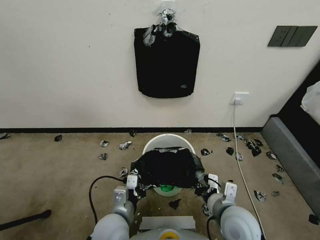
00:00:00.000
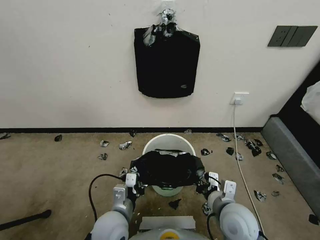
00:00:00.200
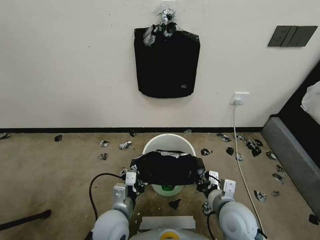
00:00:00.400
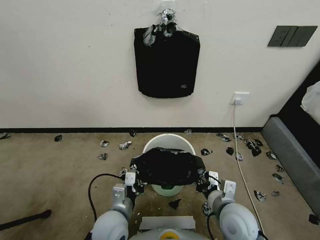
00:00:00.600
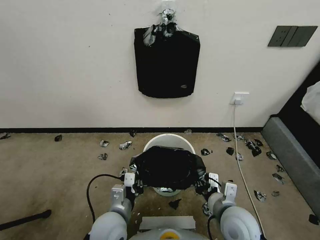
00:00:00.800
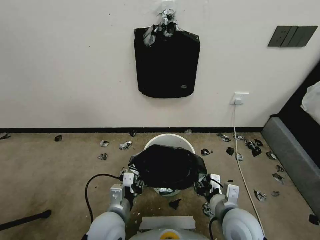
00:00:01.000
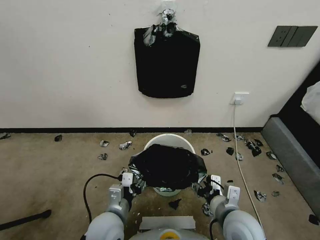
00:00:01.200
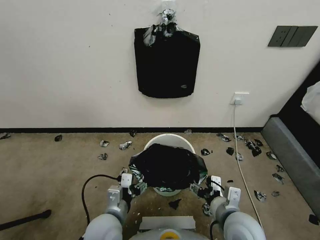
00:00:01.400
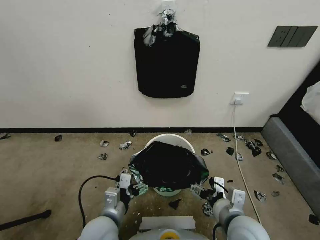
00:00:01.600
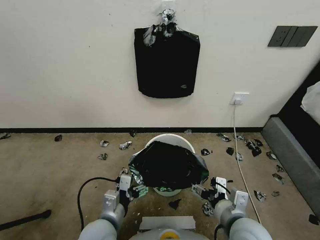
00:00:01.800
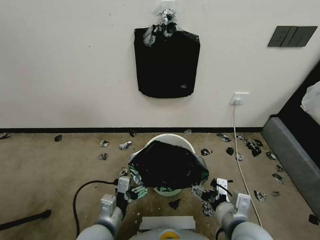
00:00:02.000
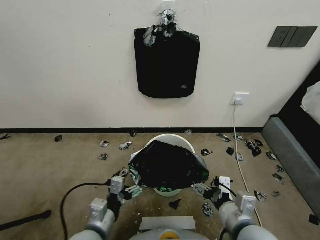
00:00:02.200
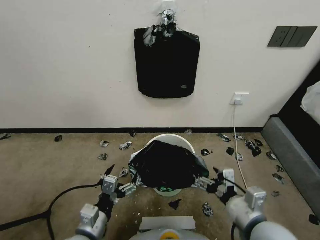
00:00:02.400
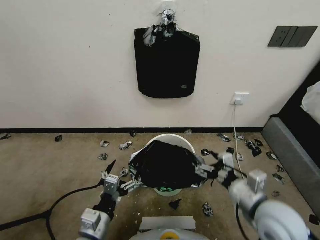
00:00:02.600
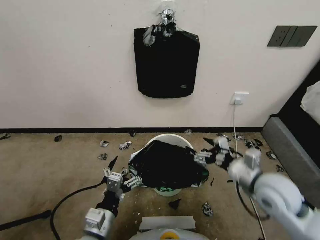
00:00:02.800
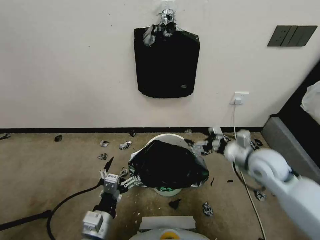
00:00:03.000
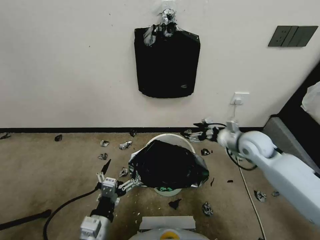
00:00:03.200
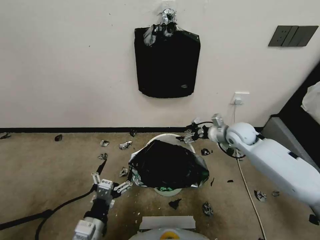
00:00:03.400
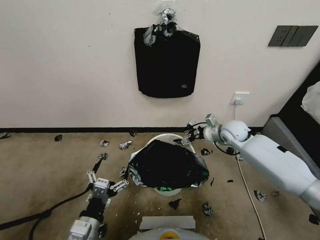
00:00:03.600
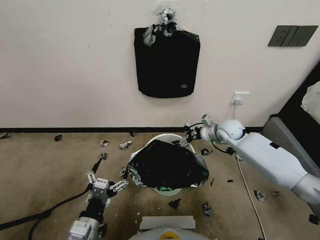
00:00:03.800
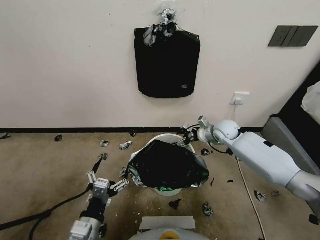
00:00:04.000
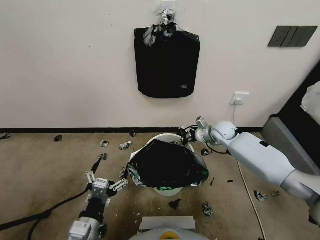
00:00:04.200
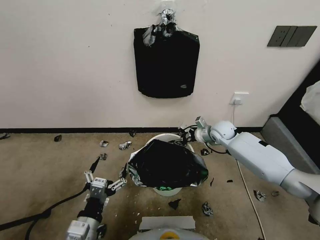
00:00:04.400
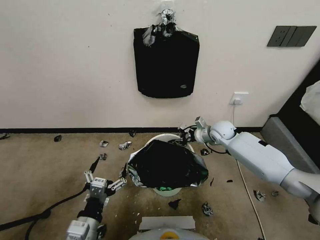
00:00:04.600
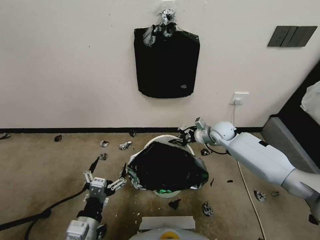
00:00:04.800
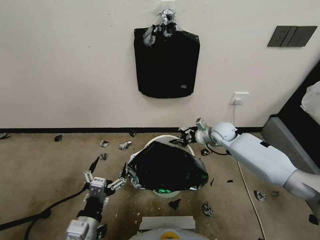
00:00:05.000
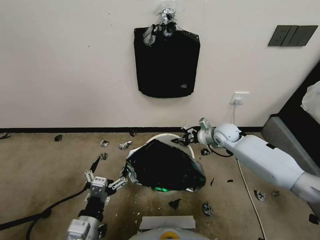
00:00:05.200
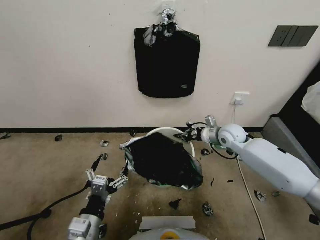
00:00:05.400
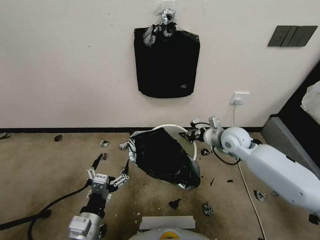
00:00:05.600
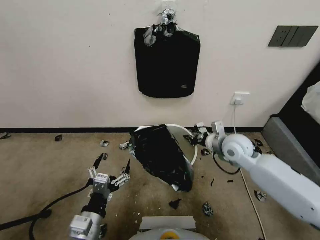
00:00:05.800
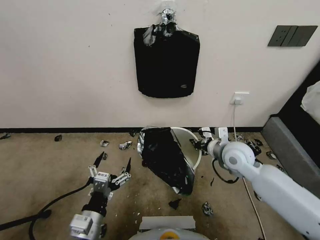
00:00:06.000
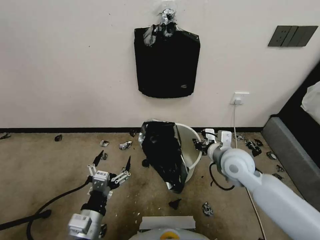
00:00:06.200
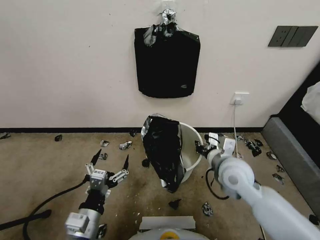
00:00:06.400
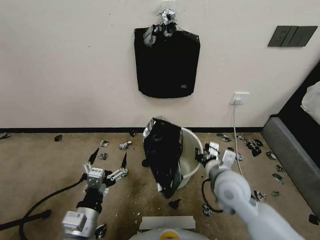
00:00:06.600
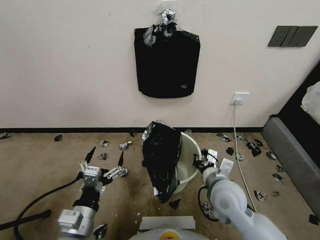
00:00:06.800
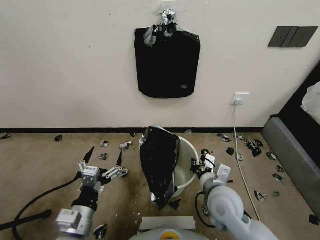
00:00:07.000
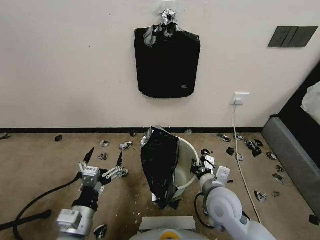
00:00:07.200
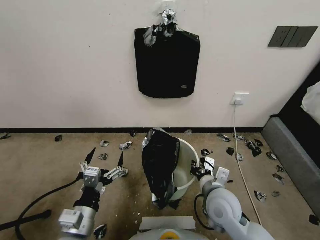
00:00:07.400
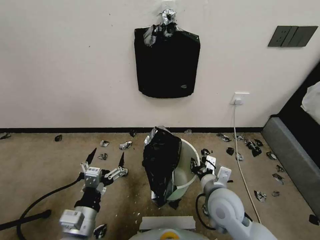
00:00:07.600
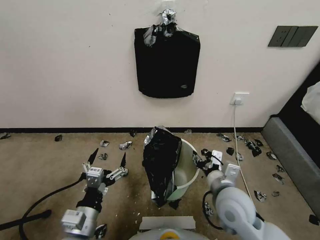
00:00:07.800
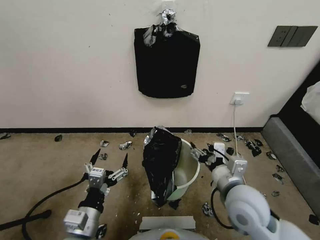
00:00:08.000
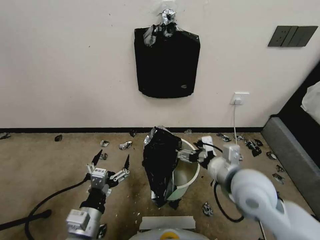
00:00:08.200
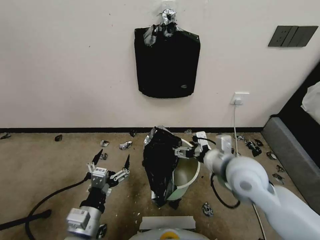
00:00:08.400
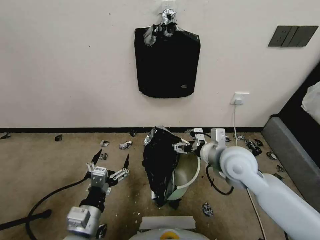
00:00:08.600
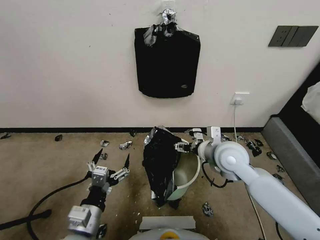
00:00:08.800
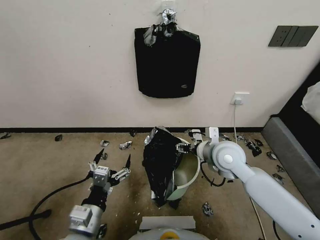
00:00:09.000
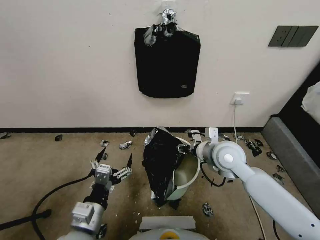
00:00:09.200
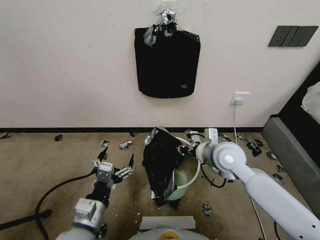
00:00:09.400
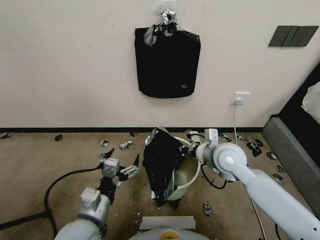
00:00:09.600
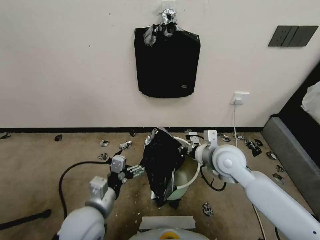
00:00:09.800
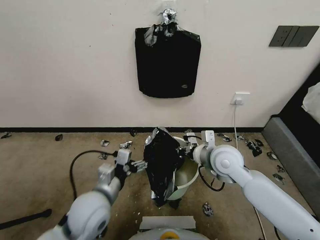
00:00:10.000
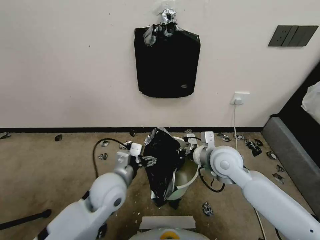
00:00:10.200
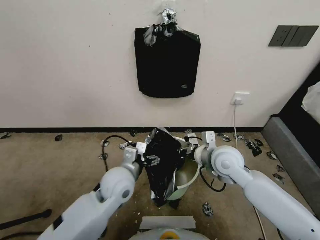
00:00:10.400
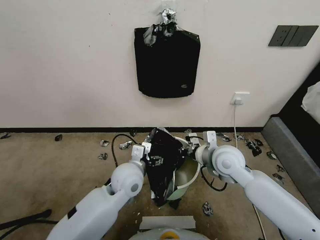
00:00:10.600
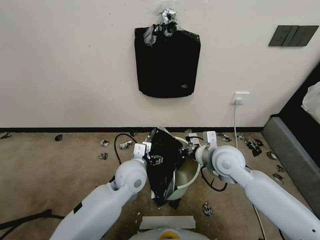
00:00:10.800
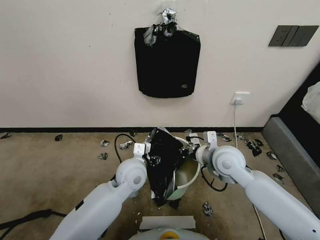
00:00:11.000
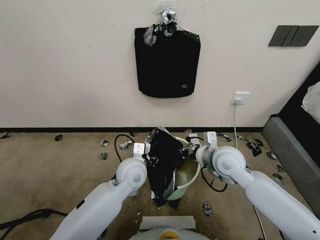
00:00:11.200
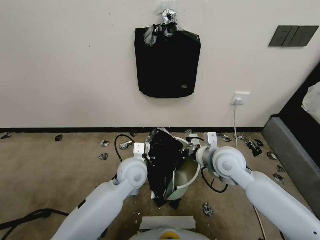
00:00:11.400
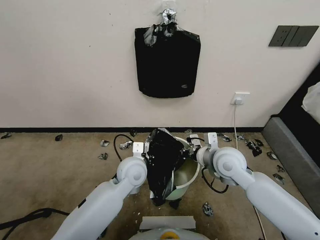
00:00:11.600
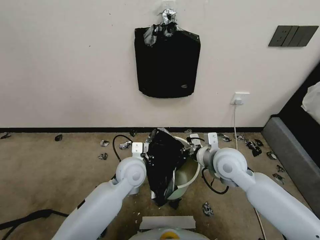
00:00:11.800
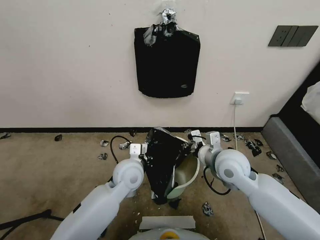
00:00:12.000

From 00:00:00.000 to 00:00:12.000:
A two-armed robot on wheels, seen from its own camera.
Task of the whole recording: Place a trash bag onto the trash bin.
From 00:00:00.000 to 00:00:01.600: The left gripper opens up, while the right gripper opens its fingers.
From 00:00:01.600 to 00:00:03.000: The left gripper moves approximately 5 cm; the right gripper shifts about 20 cm forward, to the right and upward.
From 00:00:03.000 to 00:00:04.400: The right gripper is displaced forward and downward by approximately 20 cm, and closes.
From 00:00:04.400 to 00:00:06.000: The right gripper heads backward and upward, covering some 15 cm, and closes its fingers.
From 00:00:06.000 to 00:00:07.600: The right gripper goes about 15 cm backward and to the left.
From 00:00:07.600 to 00:00:09.000: The right gripper shifts some 15 cm forward and upward, and opens and closes again.
From 00:00:09.000 to 00:00:10.400: The right gripper closes, while the left gripper shifts approximately 15 cm forward and to the right.
From 00:00:10.400 to 00:00:12.000: The left gripper closes.

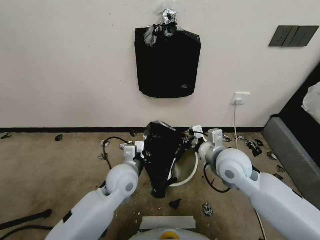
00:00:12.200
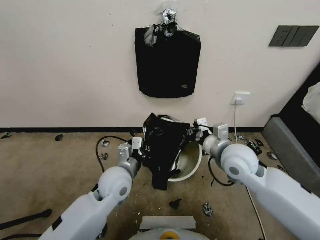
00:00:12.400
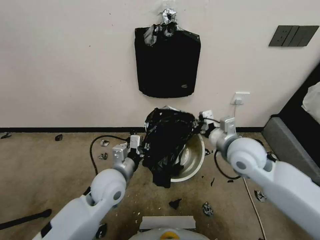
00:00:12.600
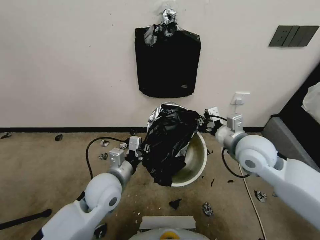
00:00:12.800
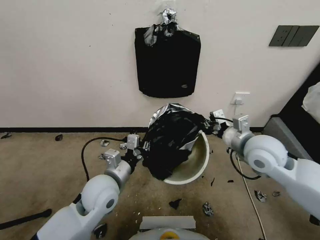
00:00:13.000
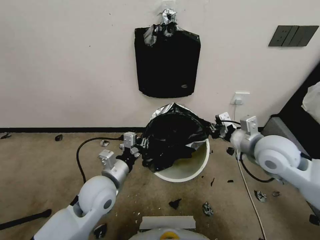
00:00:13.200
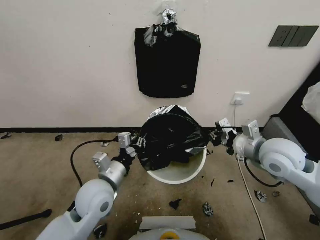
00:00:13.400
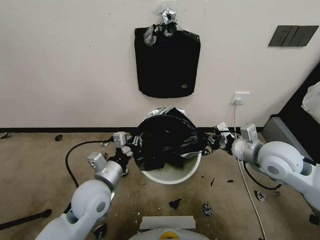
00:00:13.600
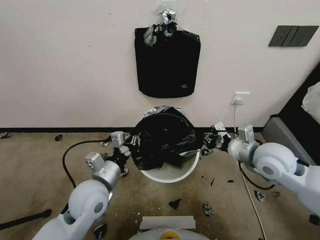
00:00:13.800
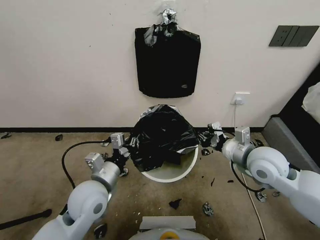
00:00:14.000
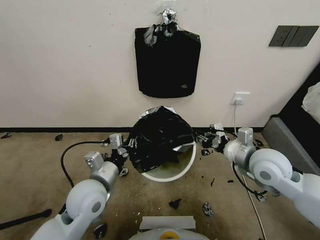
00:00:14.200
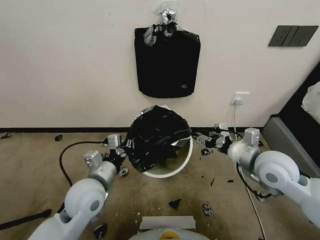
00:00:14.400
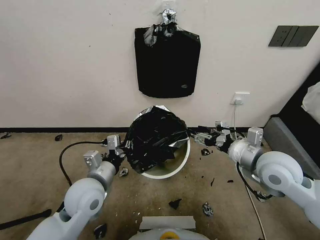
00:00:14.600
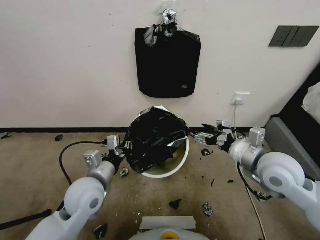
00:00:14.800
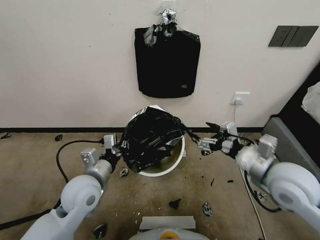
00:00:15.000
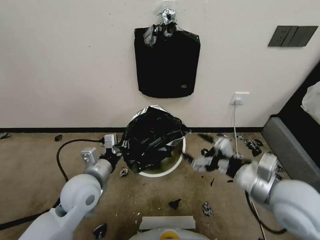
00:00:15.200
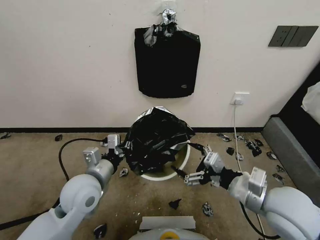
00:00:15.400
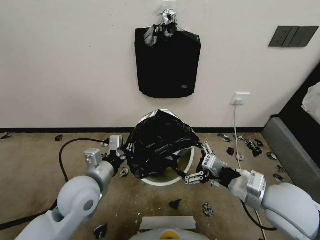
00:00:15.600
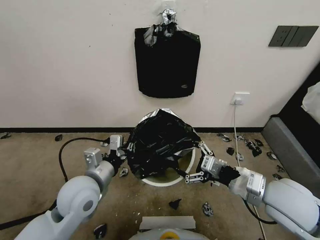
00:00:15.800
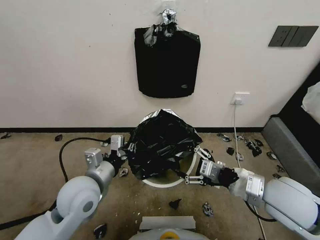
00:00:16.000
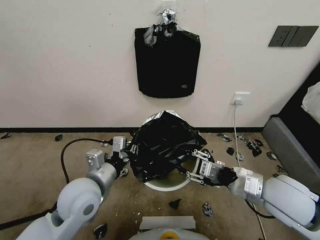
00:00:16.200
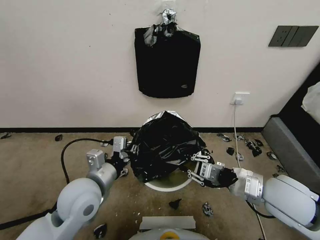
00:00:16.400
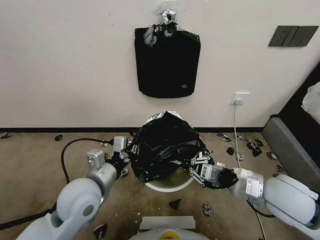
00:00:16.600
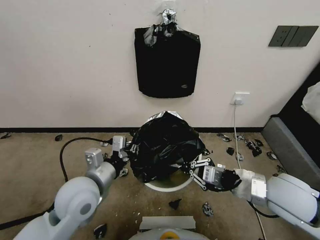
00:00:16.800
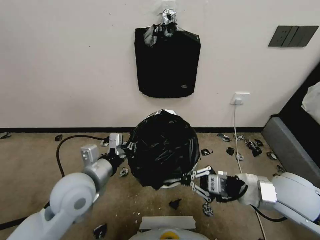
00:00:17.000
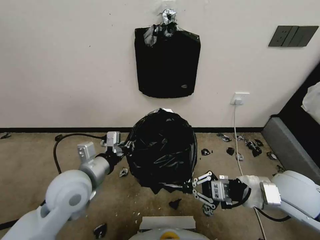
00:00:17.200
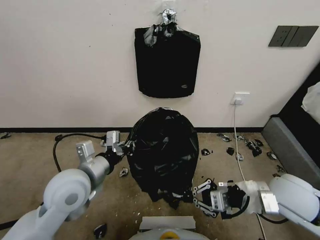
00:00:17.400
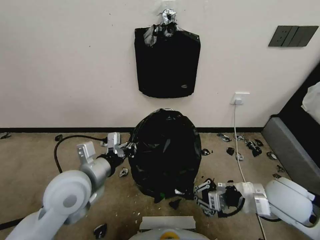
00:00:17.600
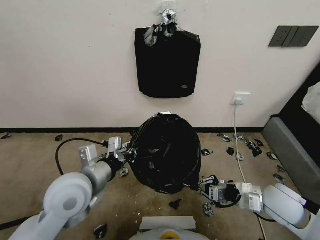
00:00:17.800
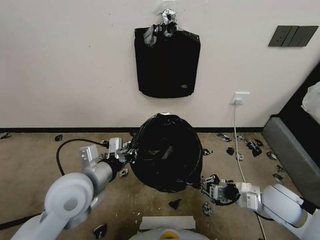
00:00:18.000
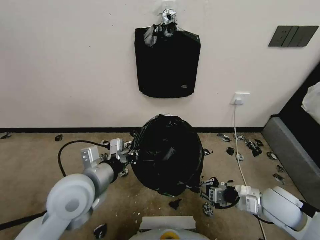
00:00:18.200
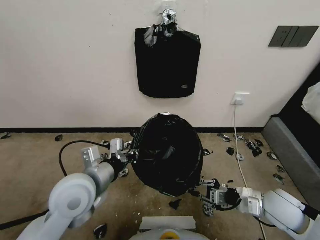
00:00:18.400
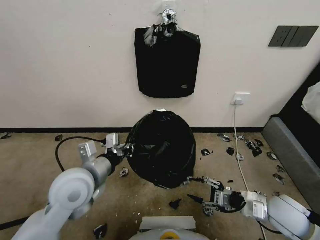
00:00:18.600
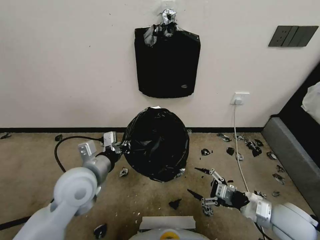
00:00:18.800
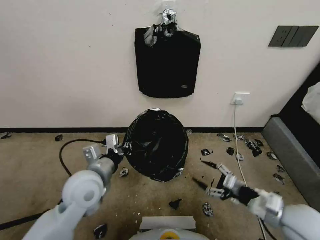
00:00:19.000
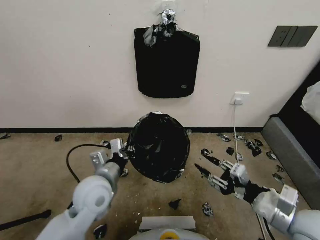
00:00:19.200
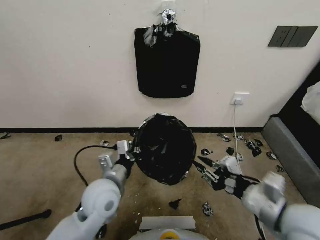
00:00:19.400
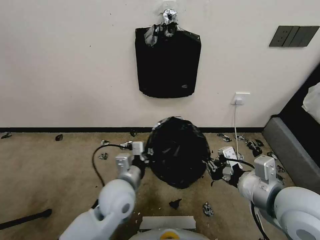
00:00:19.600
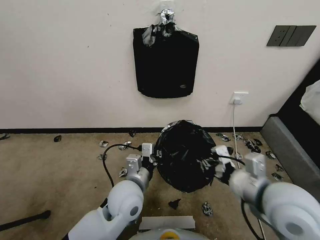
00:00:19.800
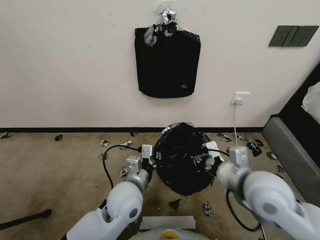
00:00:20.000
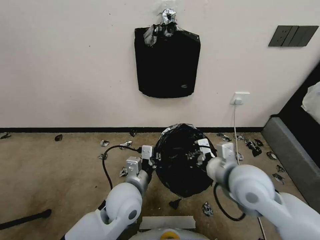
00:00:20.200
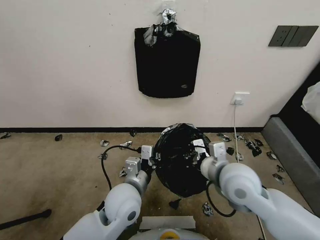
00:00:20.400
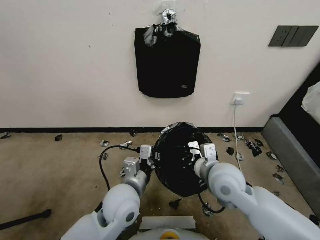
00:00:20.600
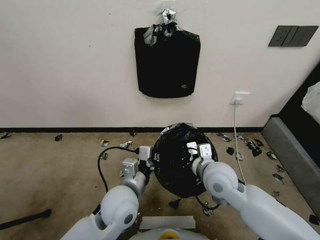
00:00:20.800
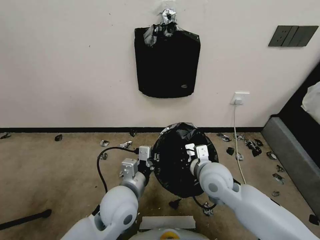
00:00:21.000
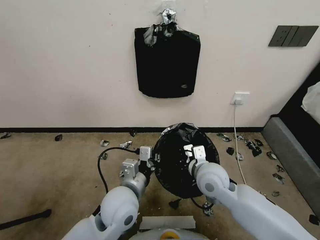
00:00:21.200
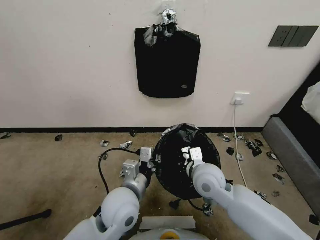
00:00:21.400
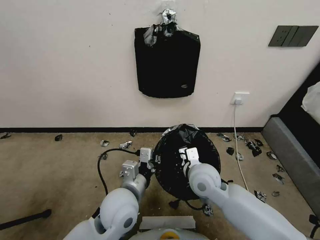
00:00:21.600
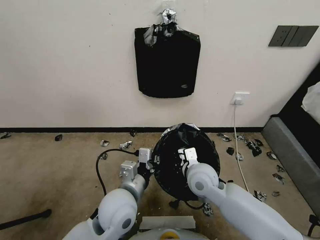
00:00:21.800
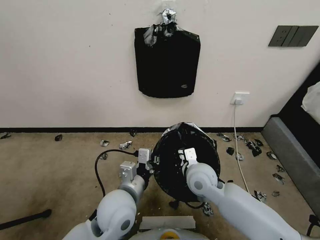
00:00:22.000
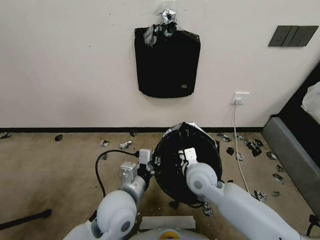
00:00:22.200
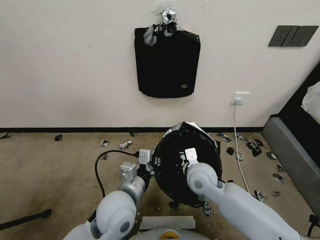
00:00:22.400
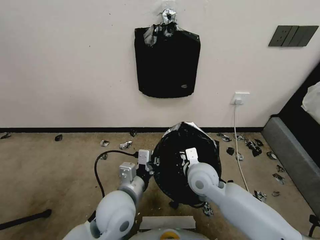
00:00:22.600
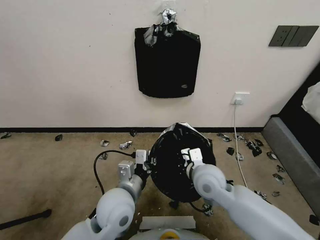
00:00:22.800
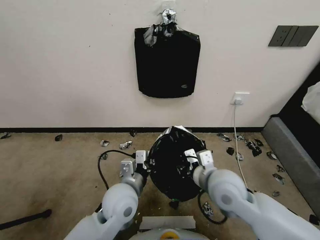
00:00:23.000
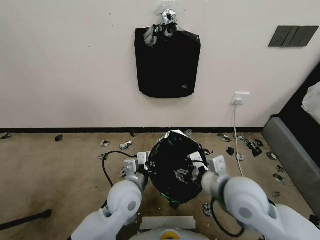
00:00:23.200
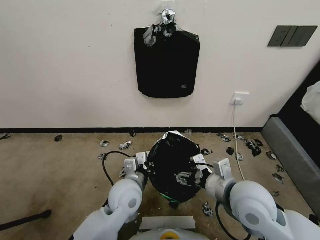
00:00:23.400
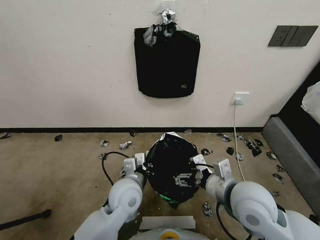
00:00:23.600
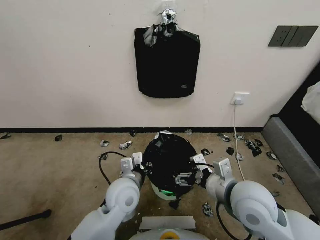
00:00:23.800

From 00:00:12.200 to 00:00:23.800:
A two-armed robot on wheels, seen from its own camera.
Task of the whole recording: Place a trash bag onto the trash bin.
From 00:00:12.200 to 00:00:13.600: The left gripper heads to the left and backward, covering about 10 cm. The right gripper goes about 10 cm to the right.
From 00:00:13.600 to 00:00:15.000: The right gripper shifts roughly 5 cm backward, and opens up.
From 00:00:15.000 to 00:00:16.600: The right gripper closes its fingers.
From 00:00:16.600 to 00:00:18.000: The right gripper travels downward and to the right by roughly 10 cm.
From 00:00:18.000 to 00:00:19.400: The right gripper travels upward, backward and to the left by approximately 15 cm, and opens and closes again, while the left gripper is displaced downward and to the right by approximately 10 cm.
From 00:00:19.400 to 00:00:21.000: The right gripper travels forward, to the left and downward by roughly 20 cm.
From 00:00:21.000 to 00:00:22.400: There are only small adjustments of the grippers.
From 00:00:22.400 to 00:00:23.800: The left gripper ends up about 5 cm from where it was. Meanwhile the right gripper is displaced backward, upward and to the right by some 15 cm, and opens.
